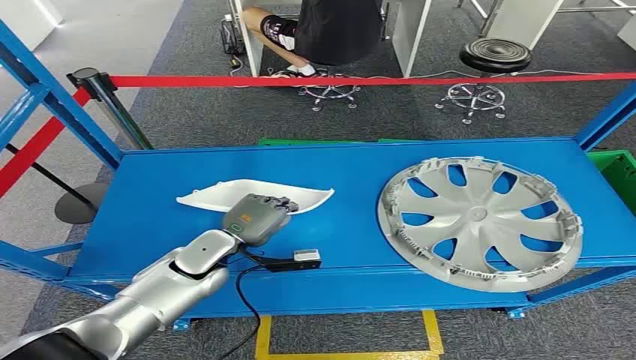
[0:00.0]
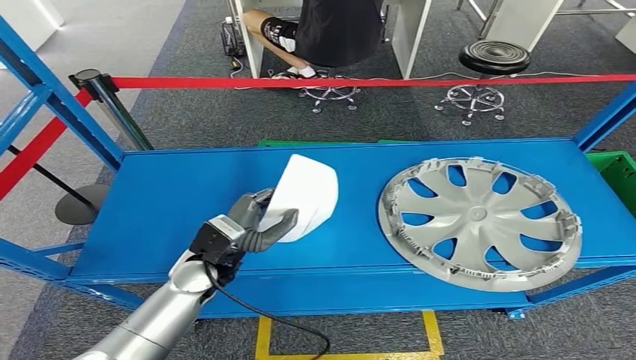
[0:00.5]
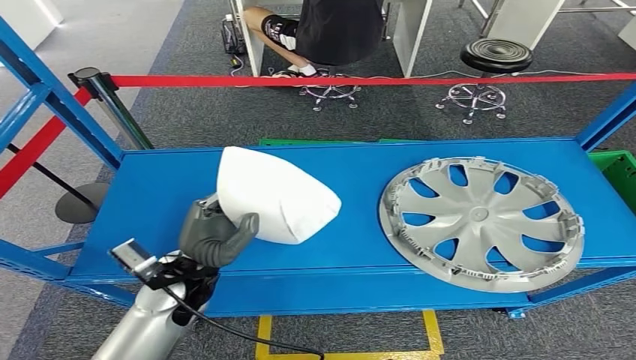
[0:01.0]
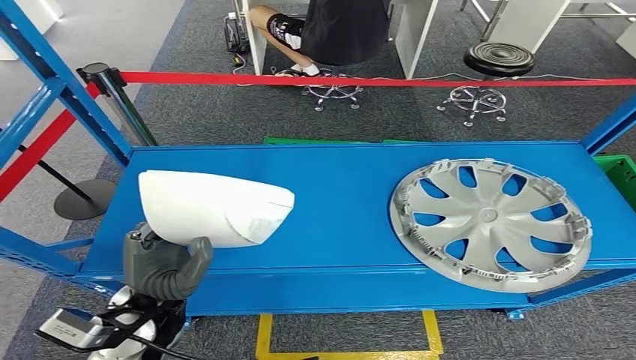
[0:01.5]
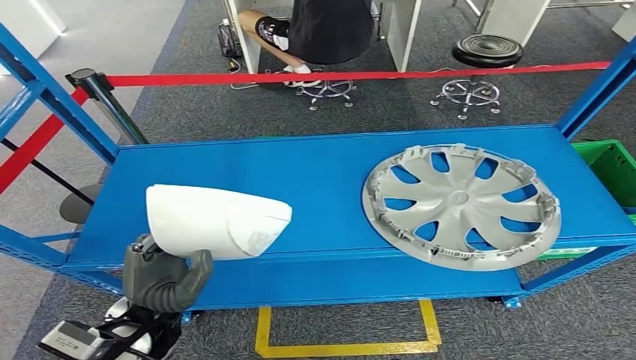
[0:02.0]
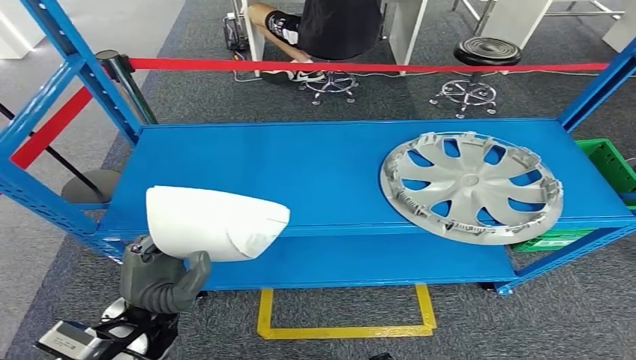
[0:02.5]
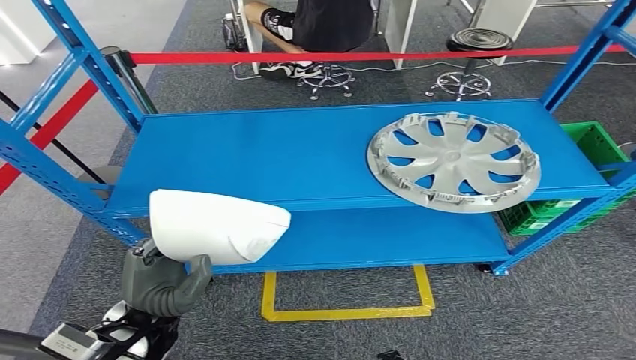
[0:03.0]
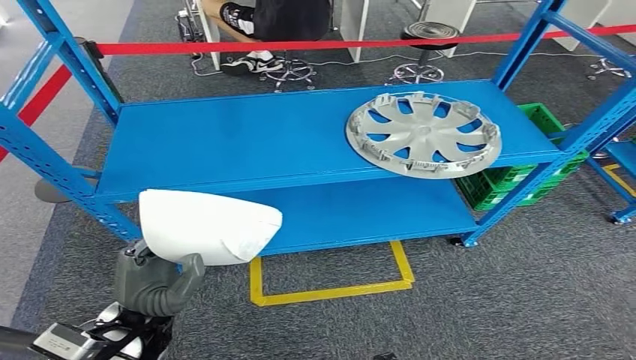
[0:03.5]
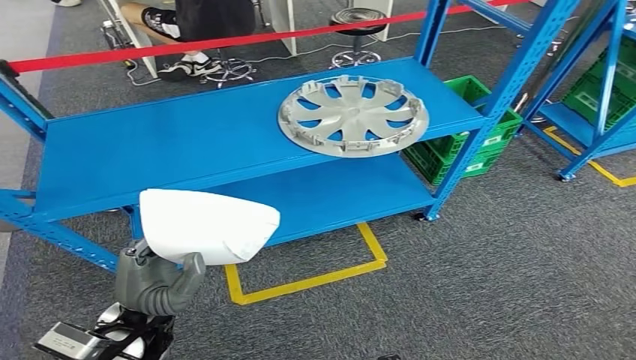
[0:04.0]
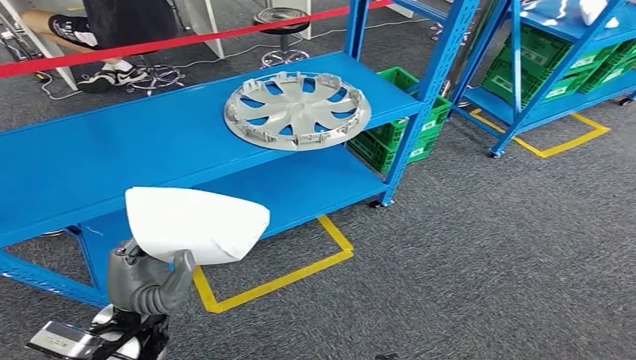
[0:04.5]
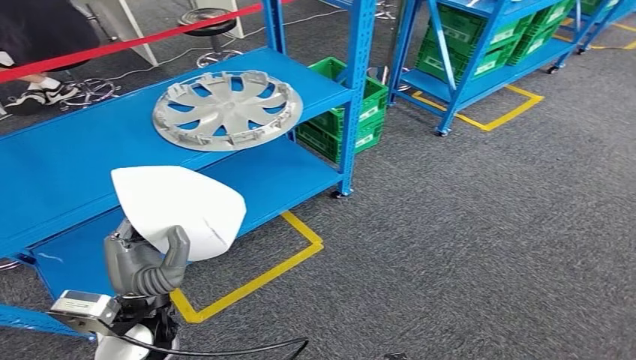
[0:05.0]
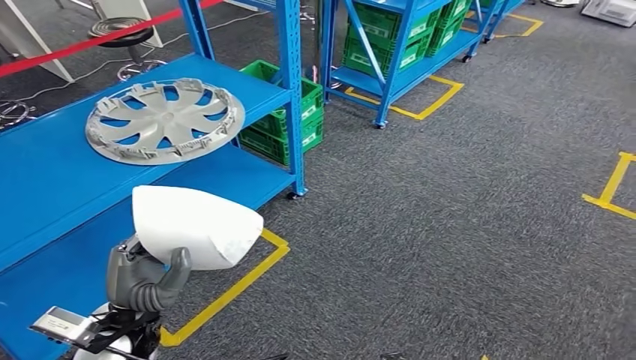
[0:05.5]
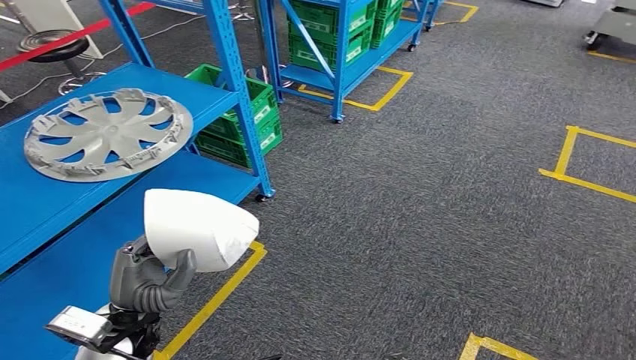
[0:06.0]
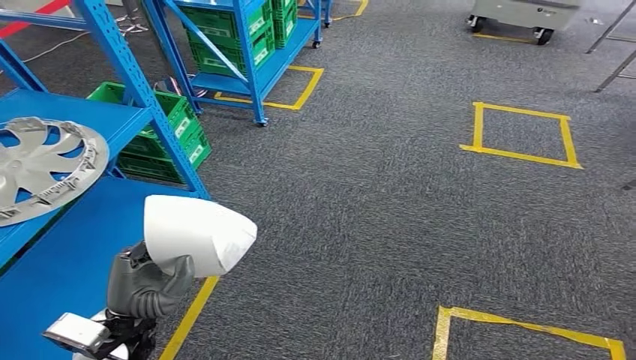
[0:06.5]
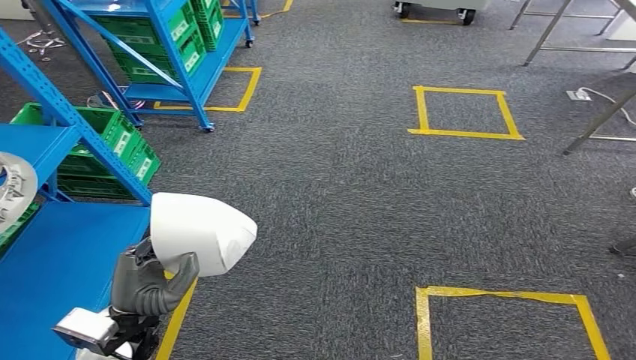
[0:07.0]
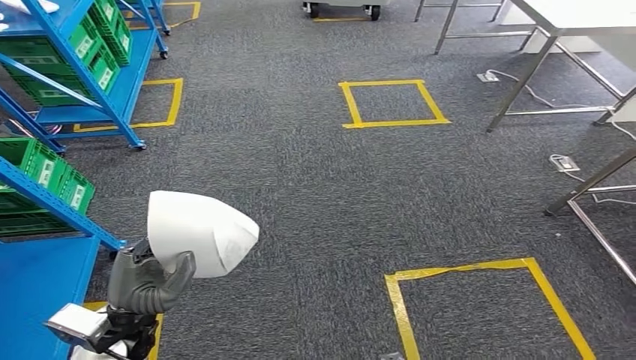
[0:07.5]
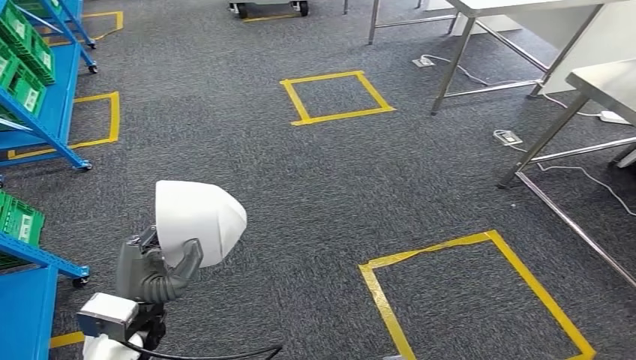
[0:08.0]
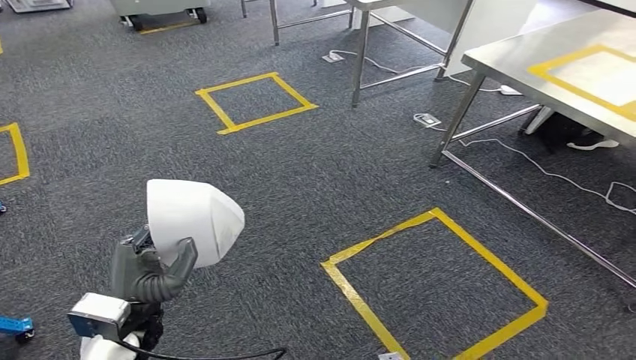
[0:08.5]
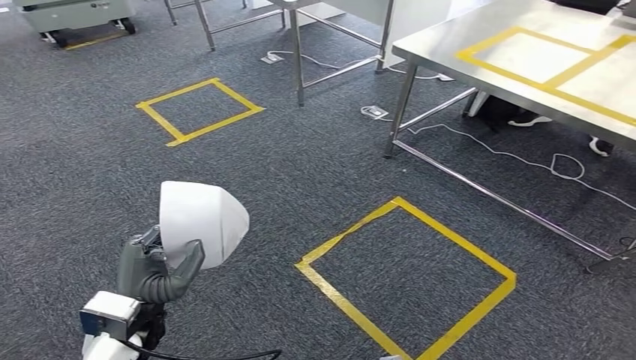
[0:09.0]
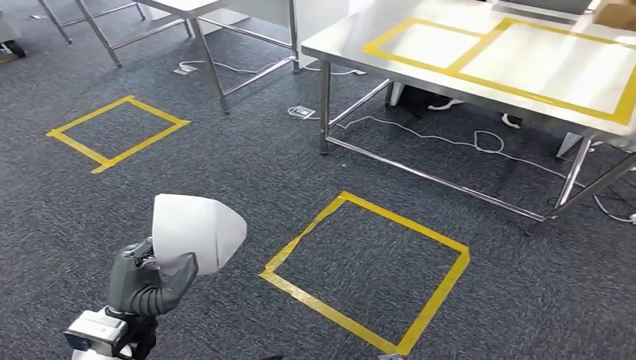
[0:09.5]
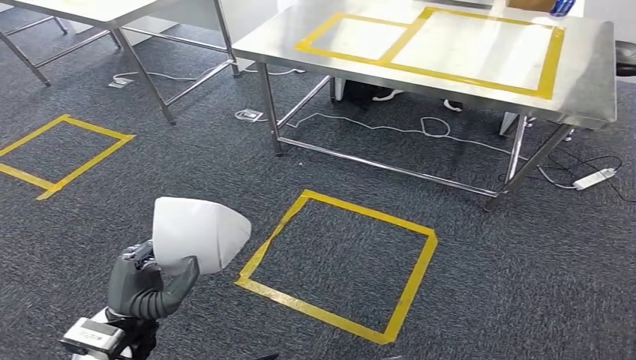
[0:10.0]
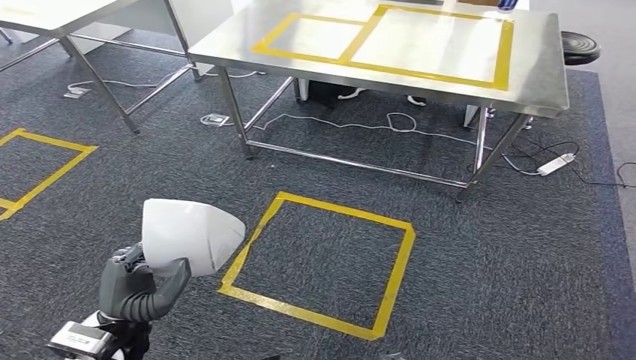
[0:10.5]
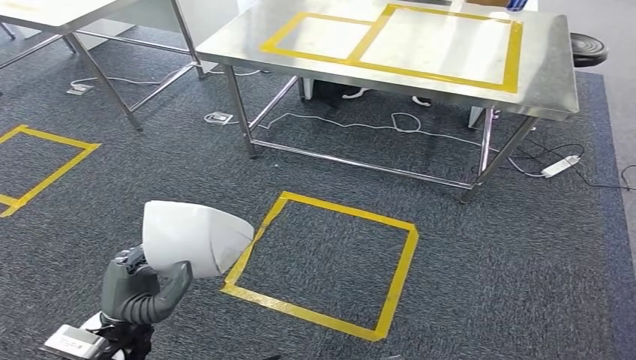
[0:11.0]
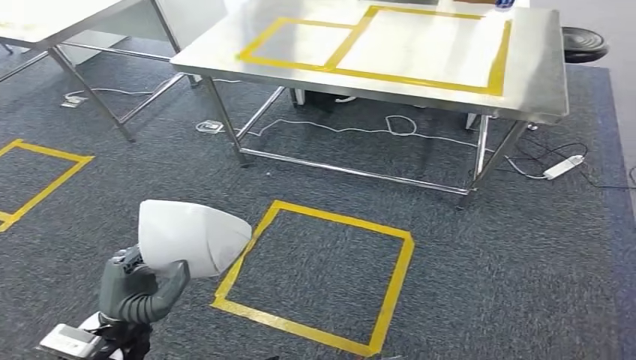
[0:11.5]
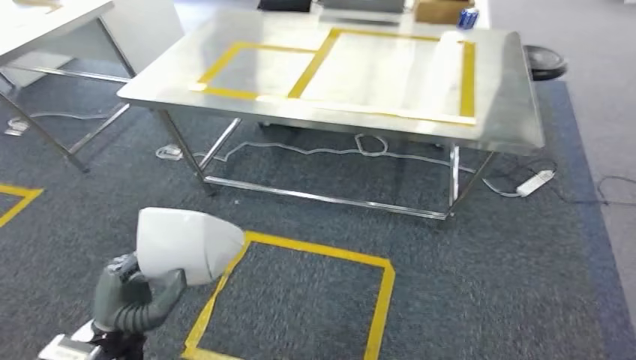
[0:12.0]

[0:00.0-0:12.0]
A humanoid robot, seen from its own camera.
Step, 0:00.0 to 0:02.5: Pick up the small component from the shelf.

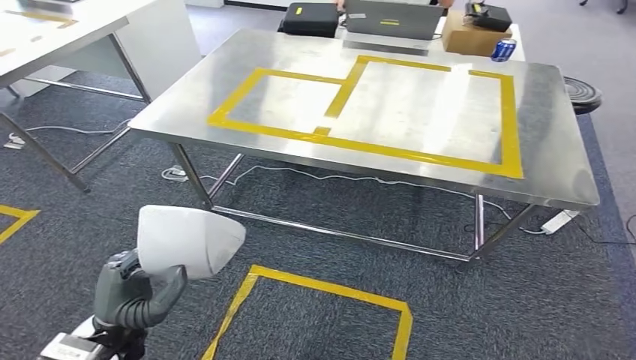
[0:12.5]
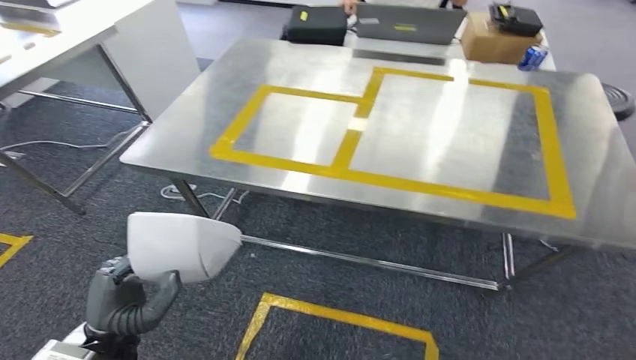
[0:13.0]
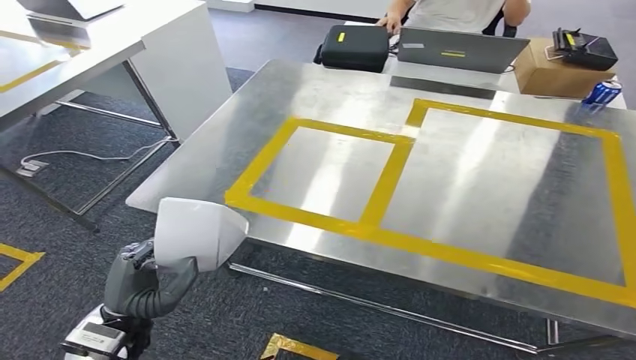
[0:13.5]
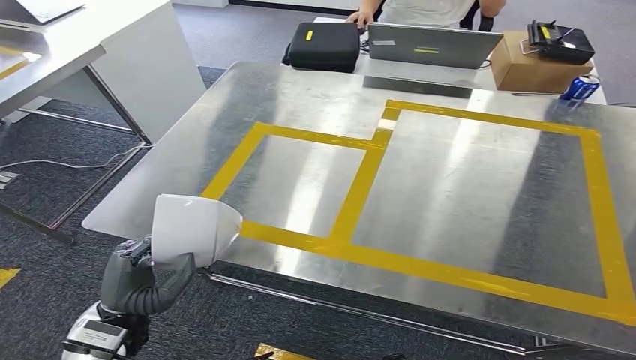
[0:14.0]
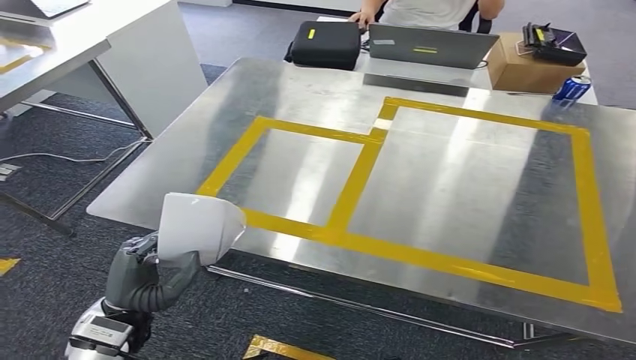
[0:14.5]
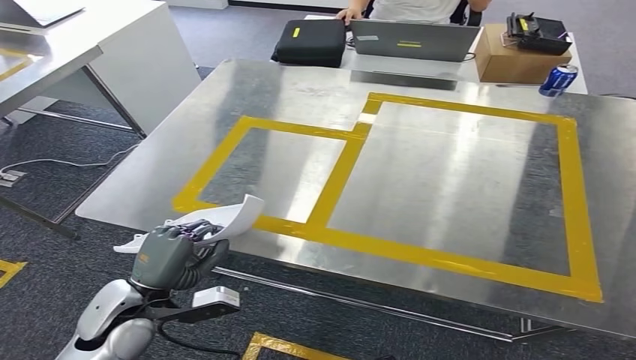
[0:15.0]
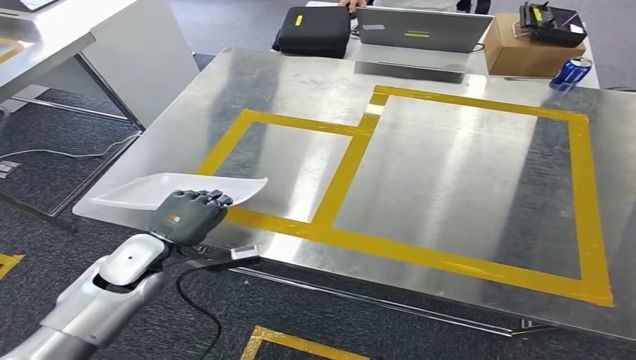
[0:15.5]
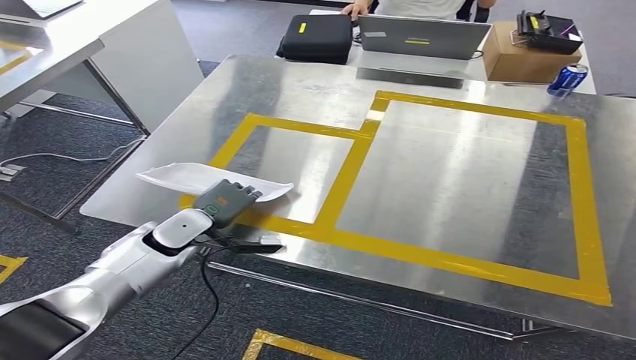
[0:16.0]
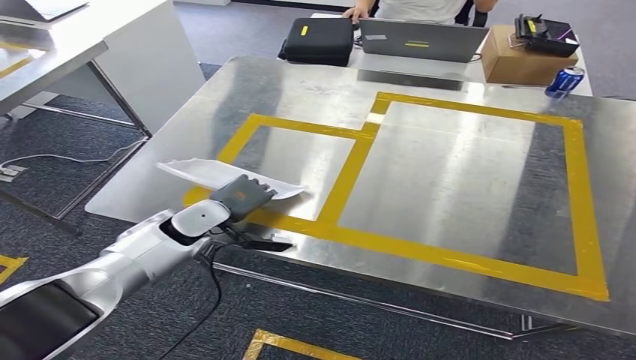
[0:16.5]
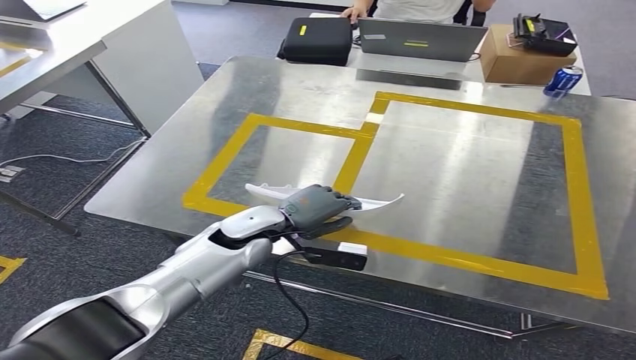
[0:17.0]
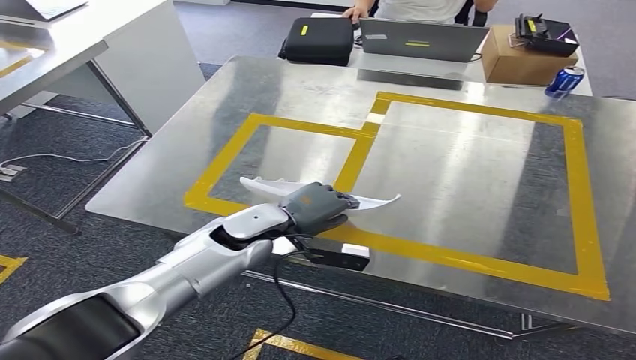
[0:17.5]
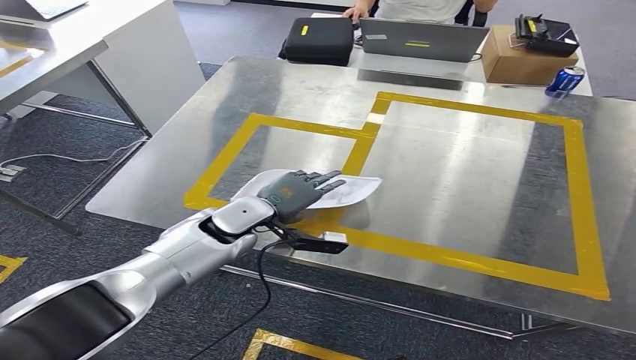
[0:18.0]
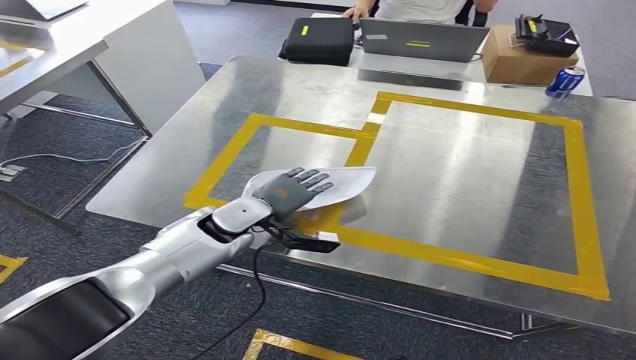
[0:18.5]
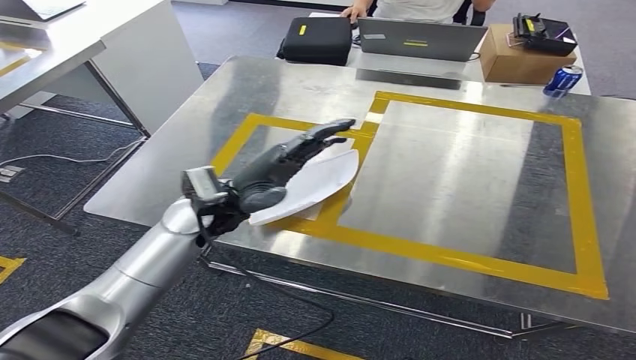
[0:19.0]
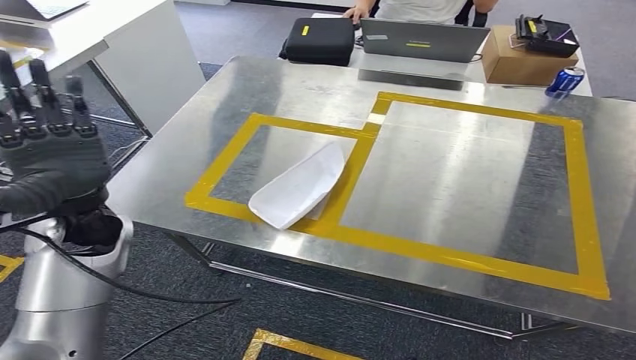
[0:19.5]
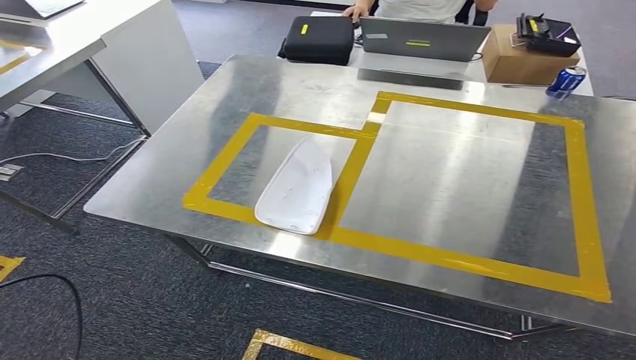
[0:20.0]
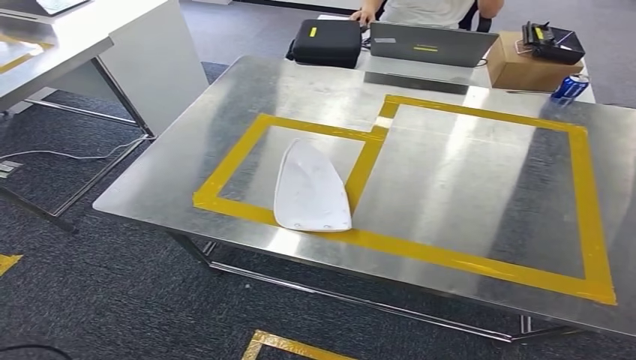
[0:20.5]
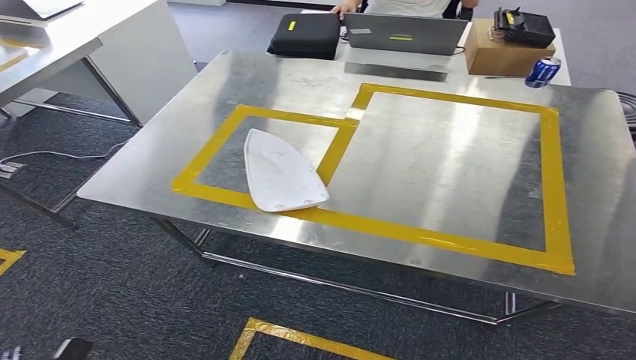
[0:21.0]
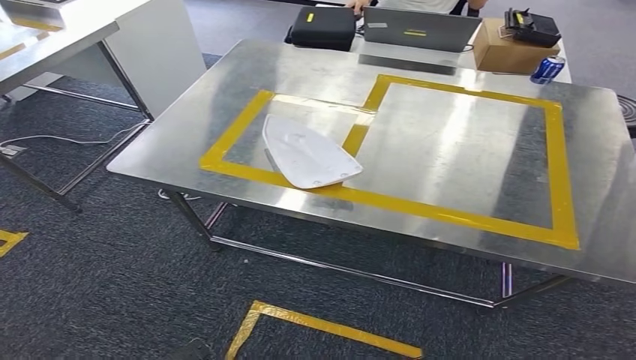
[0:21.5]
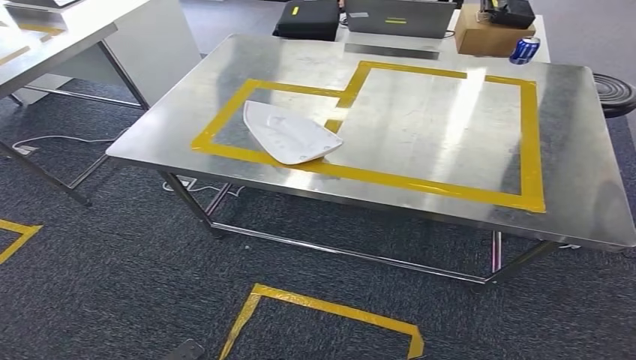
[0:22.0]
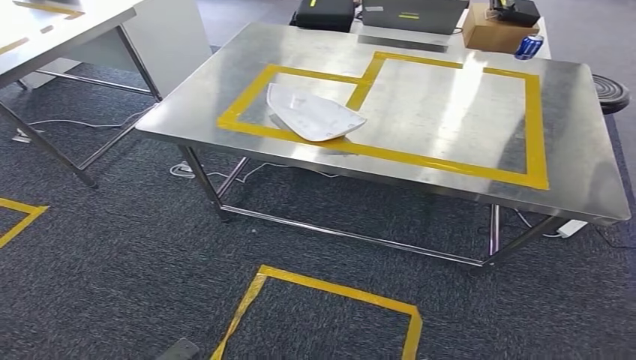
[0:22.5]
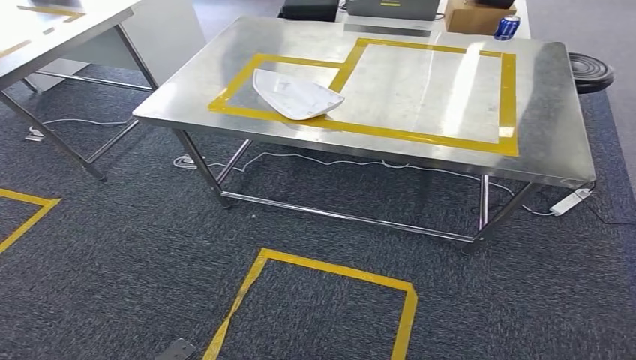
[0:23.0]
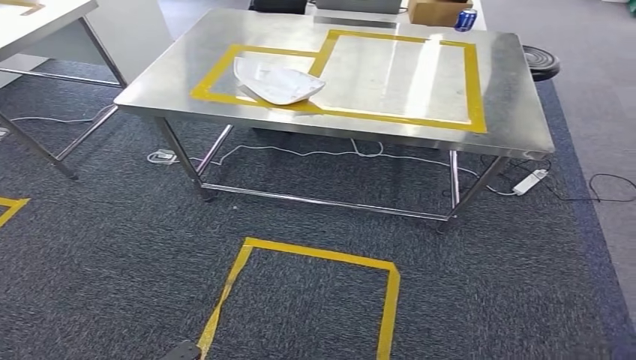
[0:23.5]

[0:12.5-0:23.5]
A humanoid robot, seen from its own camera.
Step, 0:13.5 to 0:19.5: Insert the small component into the corresponding slot on the workbench.
0:16.0 to 0:18.0: The left hand moves to the right and upward, about 10 cm.
0:18.0 to 0:20.0: The left hand travels to the left and backward by roughly 50 cm.
